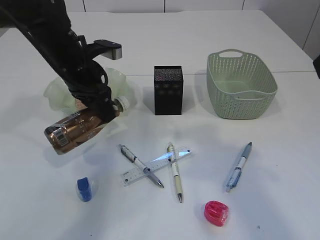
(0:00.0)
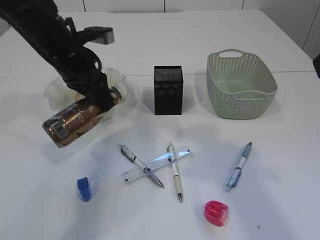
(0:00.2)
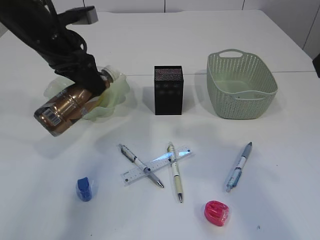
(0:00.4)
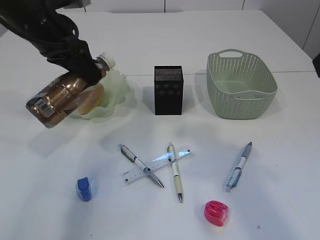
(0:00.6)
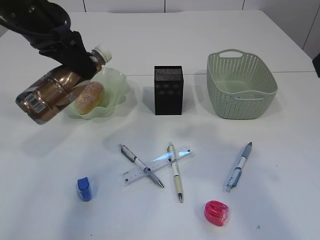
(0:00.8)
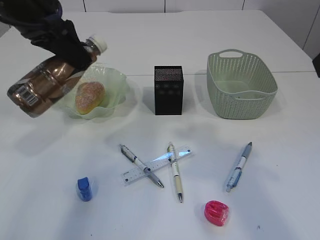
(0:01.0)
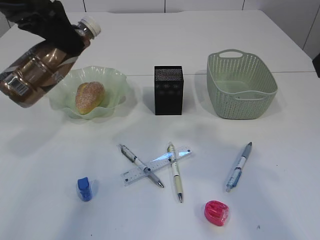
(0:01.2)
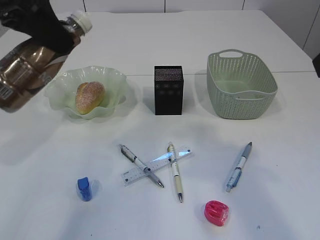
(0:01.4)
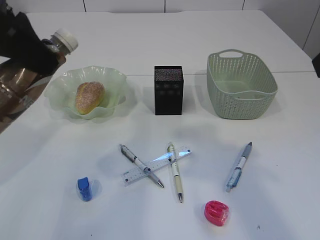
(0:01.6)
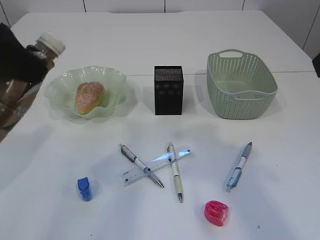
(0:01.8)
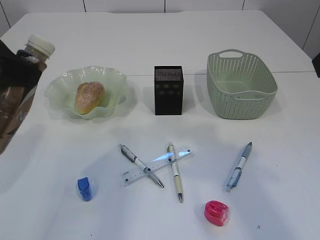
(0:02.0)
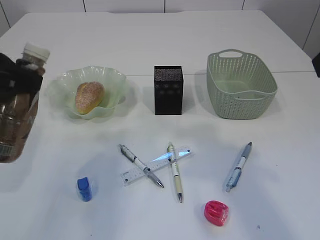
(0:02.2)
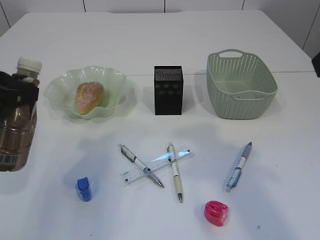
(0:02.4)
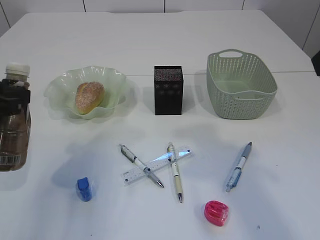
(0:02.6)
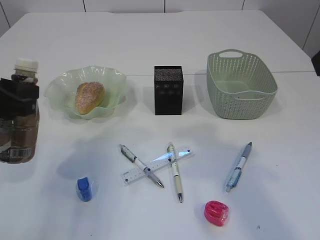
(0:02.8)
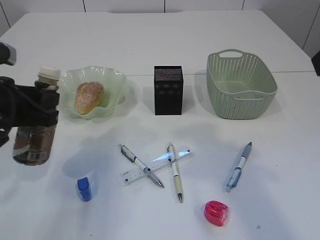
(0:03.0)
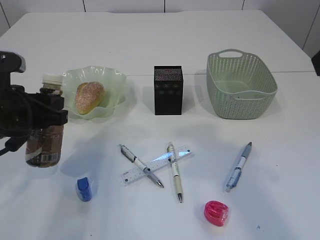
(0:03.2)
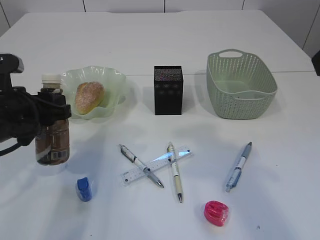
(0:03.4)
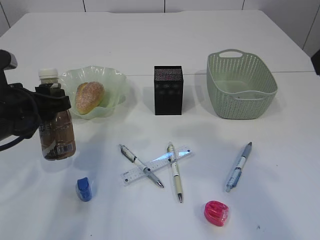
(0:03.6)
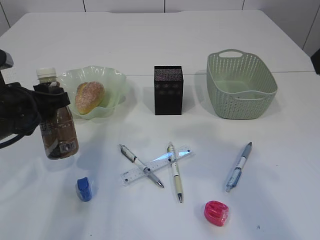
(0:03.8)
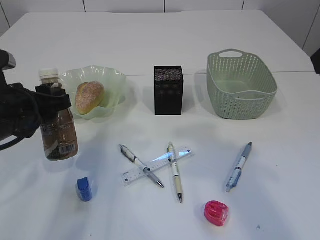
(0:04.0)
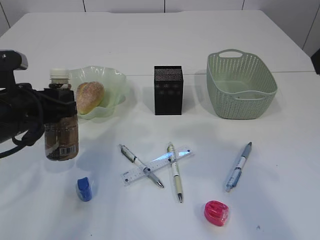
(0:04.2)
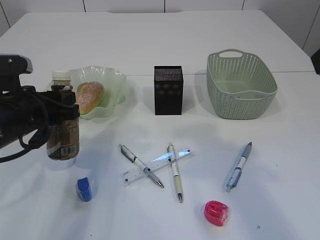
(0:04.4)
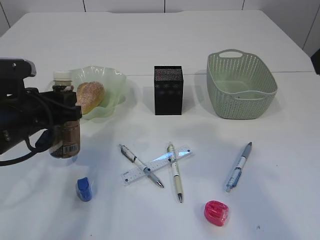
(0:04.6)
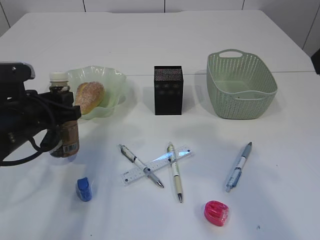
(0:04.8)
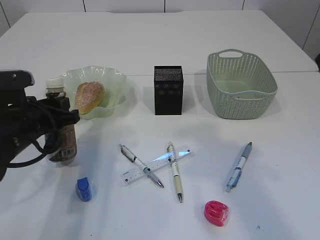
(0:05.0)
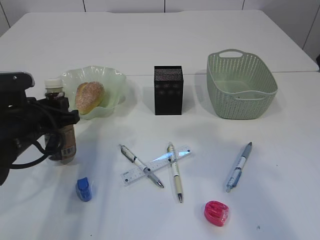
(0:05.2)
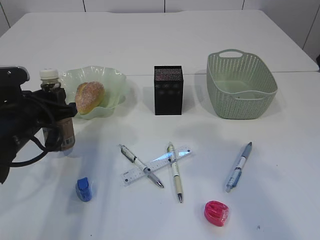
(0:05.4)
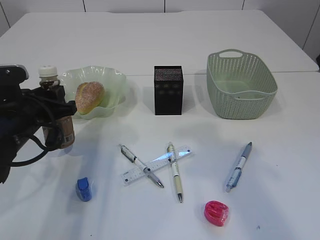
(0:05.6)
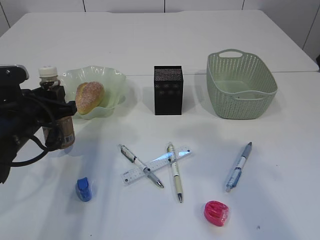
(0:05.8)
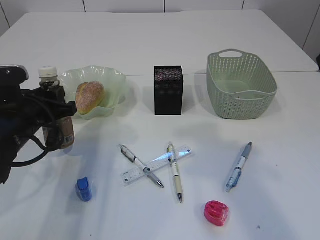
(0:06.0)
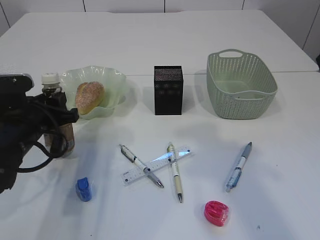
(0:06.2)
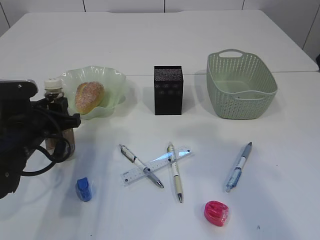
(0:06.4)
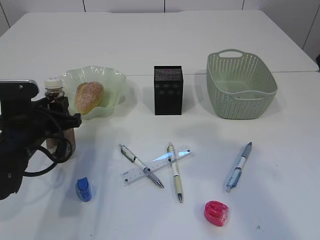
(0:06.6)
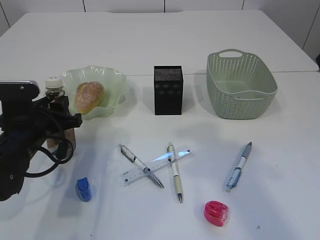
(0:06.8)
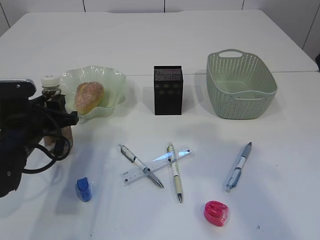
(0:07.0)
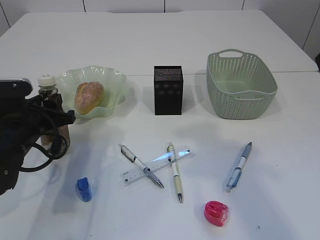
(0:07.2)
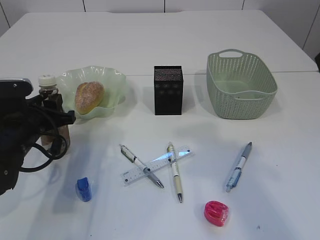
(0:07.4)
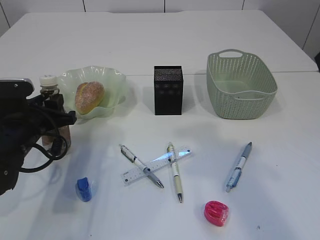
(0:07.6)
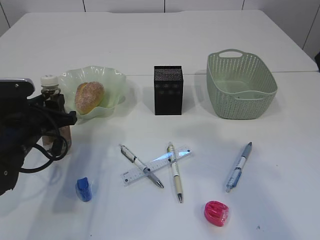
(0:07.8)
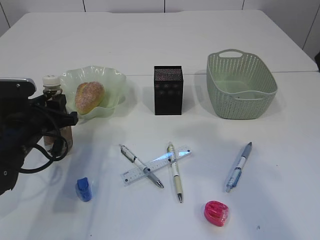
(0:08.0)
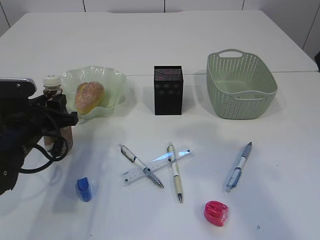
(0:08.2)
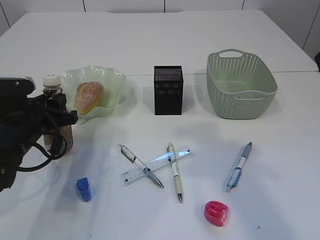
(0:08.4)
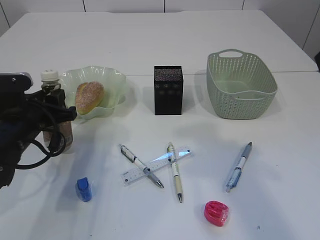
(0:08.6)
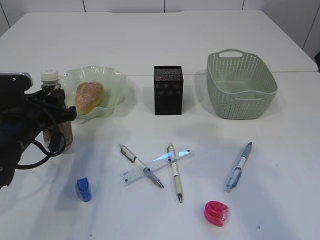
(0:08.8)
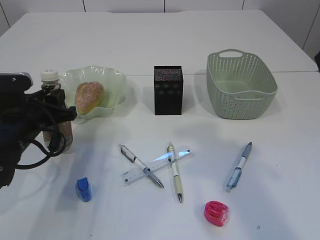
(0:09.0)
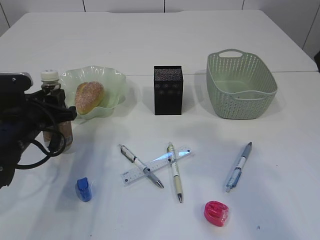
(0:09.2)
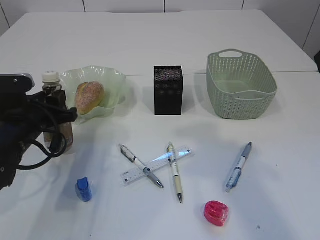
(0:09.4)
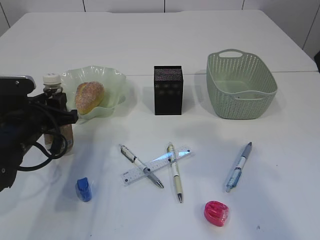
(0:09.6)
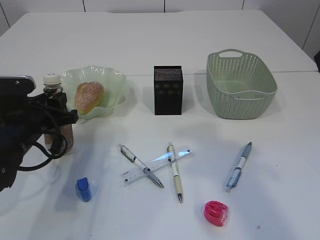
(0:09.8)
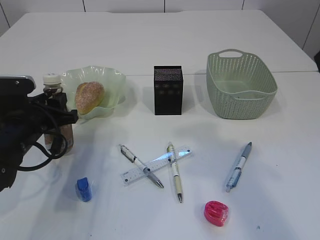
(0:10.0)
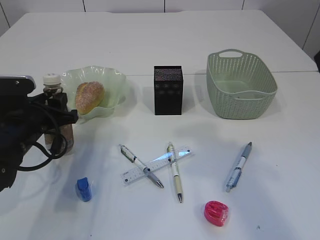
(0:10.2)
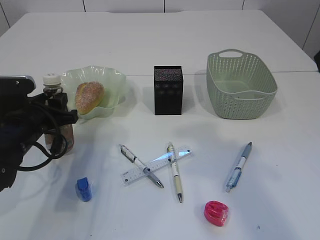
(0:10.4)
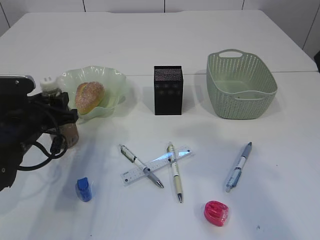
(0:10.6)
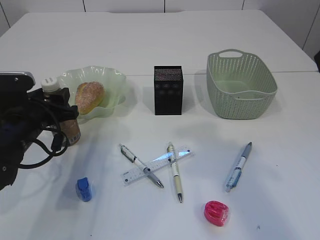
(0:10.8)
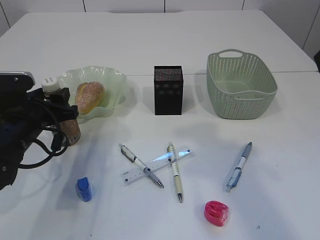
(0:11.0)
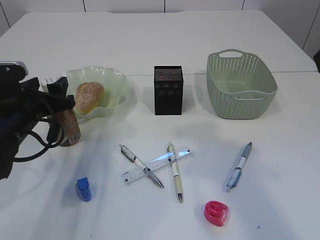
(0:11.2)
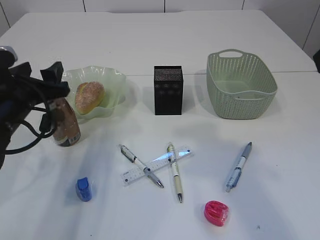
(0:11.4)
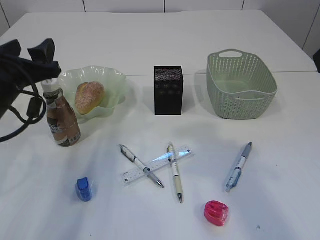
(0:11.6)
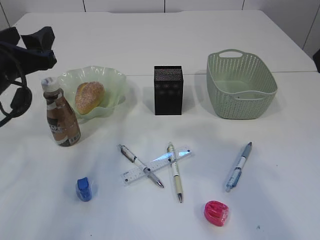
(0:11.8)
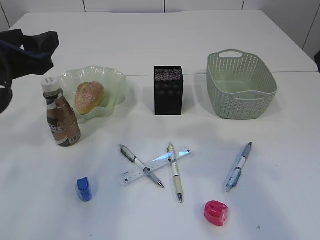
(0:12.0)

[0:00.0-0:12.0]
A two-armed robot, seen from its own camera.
0:00.0 to 0:01.6: The left gripper heads upward and backward, covering about 20 cm.
0:01.6 to 0:03.0: The left gripper shifts about 15 cm downward.
0:04.4 to 0:06.0: The grippers move only a little.
0:06.0 to 0:07.6: The grippers move only a little.
0:07.6 to 0:10.4: Both grippers stay put.
0:10.4 to 0:12.0: The left gripper goes about 15 cm upward, and opens.

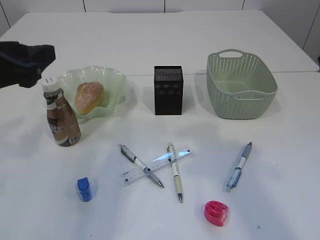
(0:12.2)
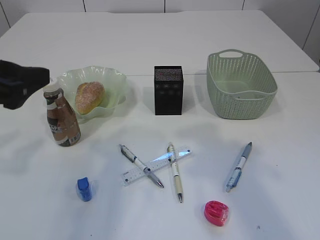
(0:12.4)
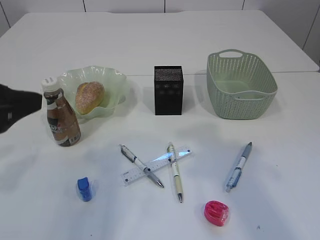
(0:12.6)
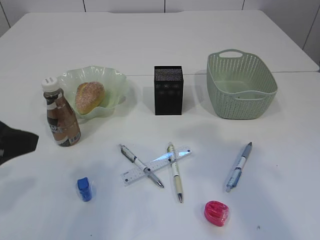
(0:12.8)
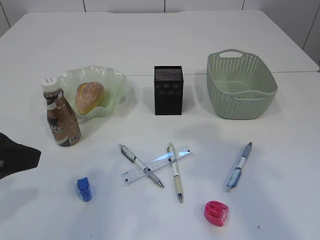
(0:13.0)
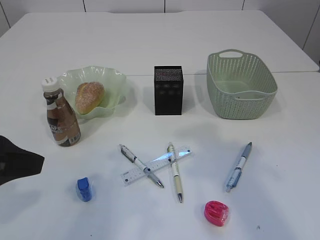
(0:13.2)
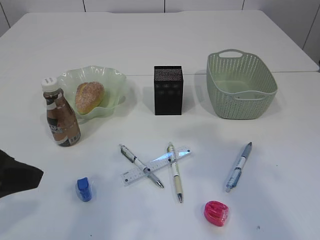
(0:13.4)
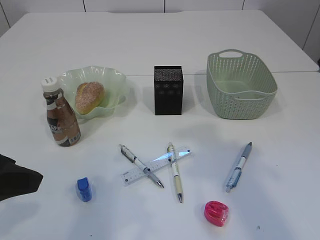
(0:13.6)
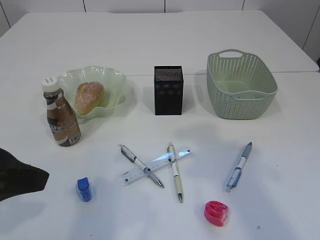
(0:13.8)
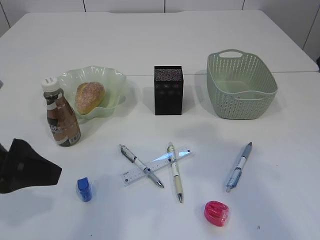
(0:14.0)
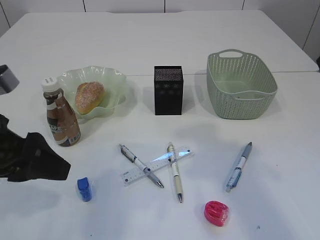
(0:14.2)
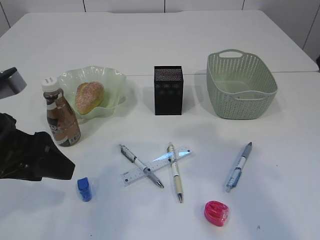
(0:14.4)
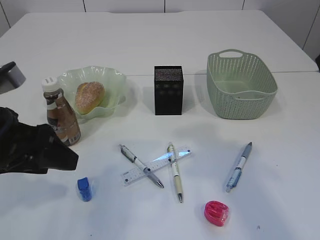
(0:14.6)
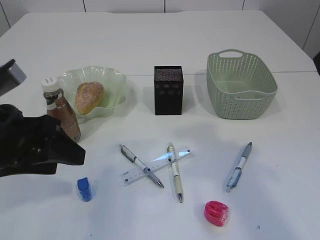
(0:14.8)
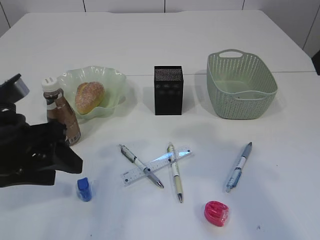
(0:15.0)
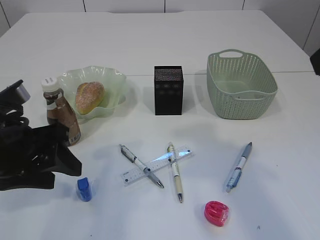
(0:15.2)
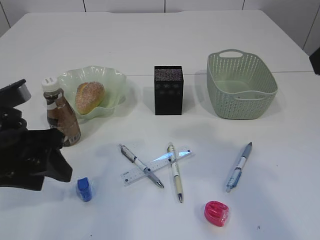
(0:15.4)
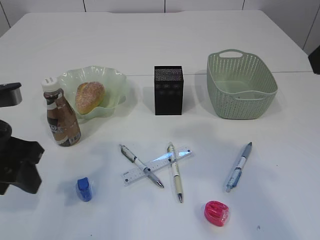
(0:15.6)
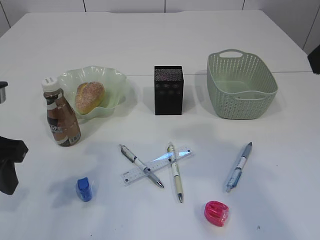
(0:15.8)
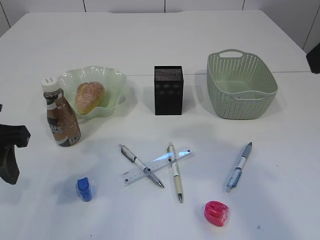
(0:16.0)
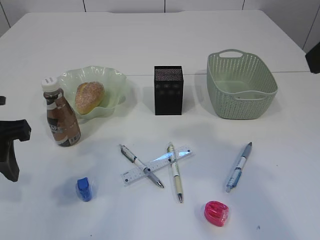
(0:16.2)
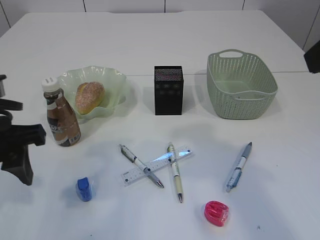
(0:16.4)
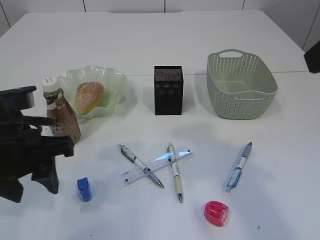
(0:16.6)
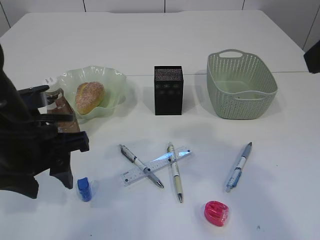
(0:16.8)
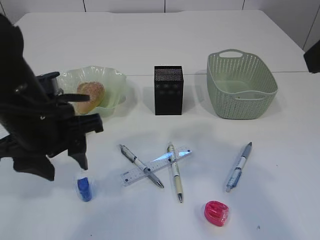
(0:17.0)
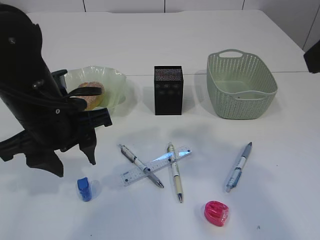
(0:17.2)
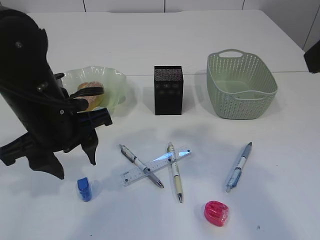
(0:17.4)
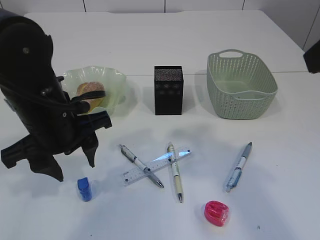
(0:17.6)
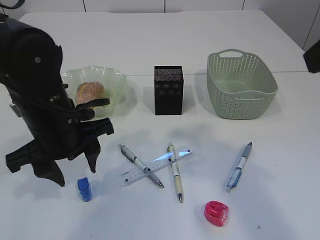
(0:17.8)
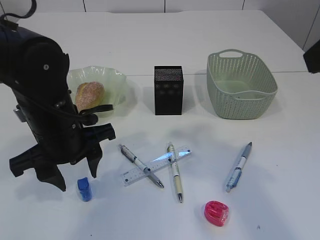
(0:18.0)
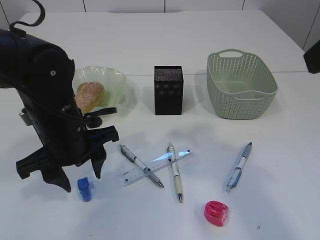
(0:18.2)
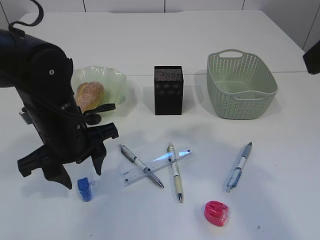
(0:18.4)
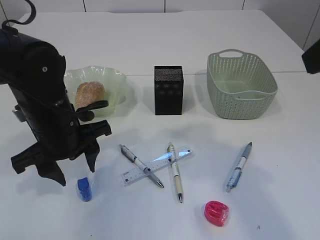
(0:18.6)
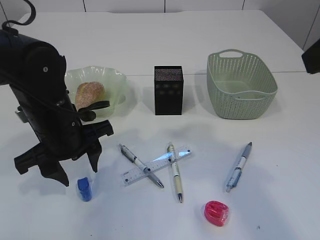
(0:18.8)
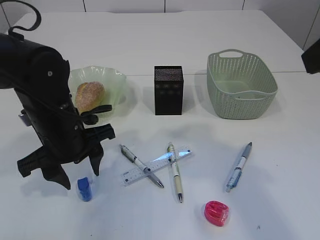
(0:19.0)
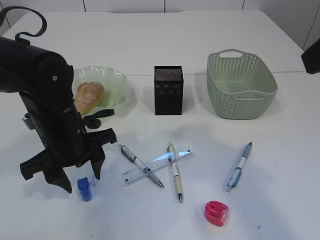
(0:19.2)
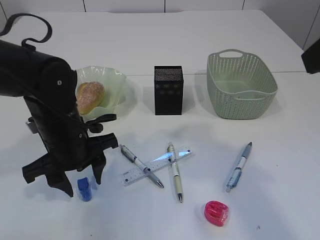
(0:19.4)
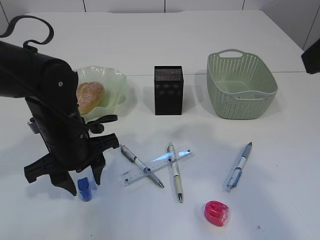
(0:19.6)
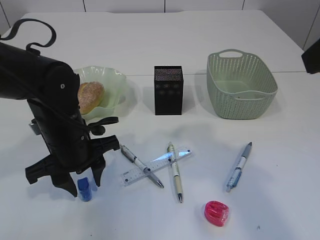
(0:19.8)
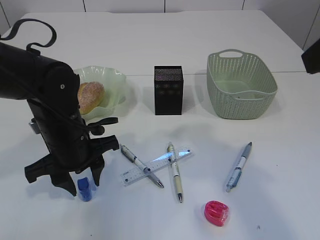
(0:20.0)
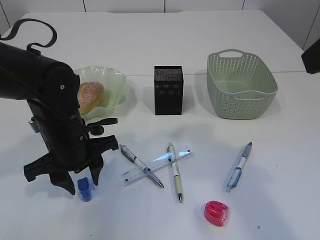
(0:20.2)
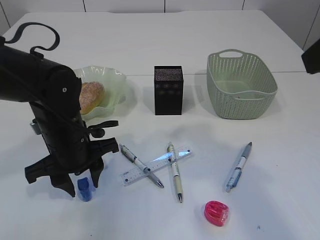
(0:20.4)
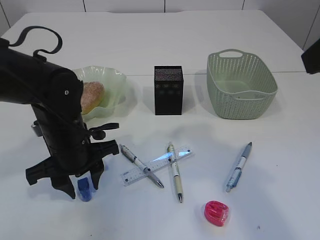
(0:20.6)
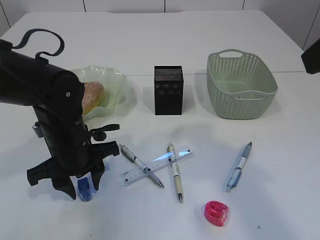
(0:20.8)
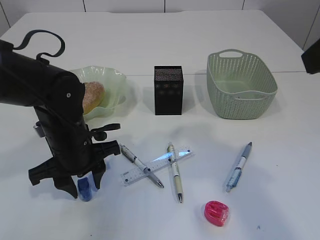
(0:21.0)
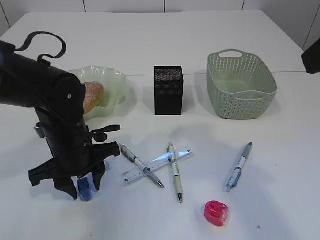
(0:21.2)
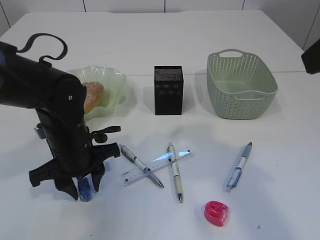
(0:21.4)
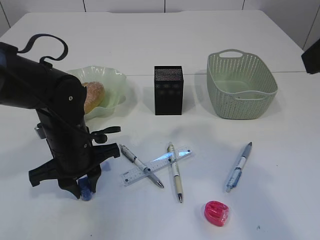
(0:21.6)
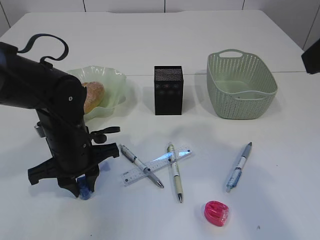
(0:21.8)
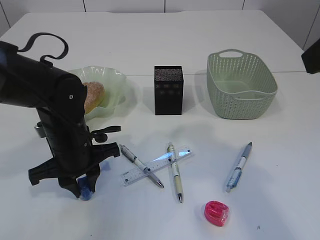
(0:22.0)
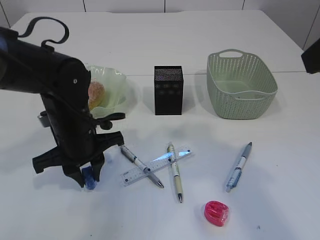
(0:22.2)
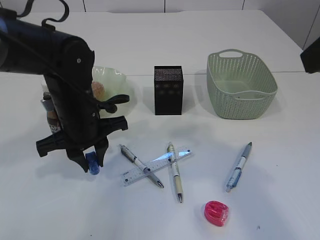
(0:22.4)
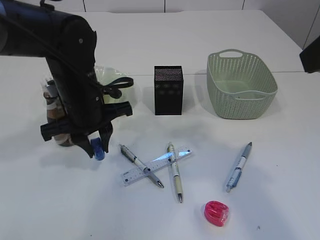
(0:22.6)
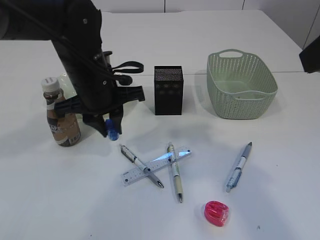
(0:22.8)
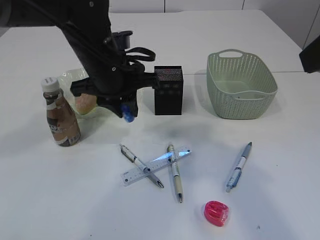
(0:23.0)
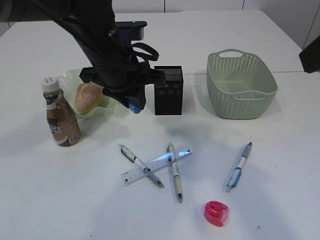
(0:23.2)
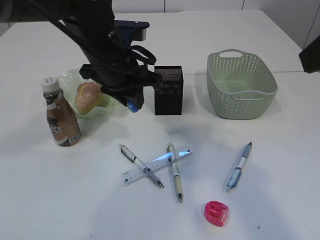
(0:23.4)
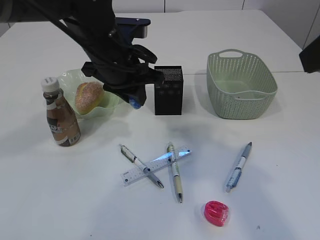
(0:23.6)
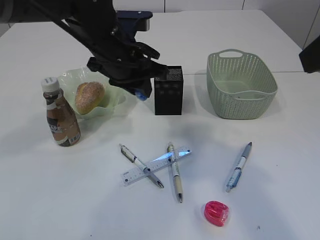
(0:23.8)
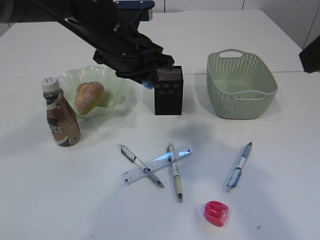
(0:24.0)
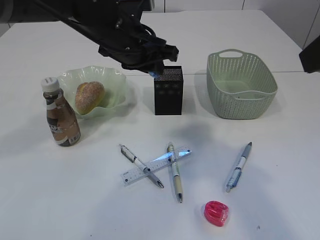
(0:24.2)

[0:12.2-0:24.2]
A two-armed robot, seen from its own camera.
Step, 0:12.4 to 0:23.2: Pick up the blue pencil sharpener.
0:12.2 to 0:13.8: The left gripper moves backward, some 10 cm.
0:13.8 to 0:15.2: The left gripper heads forward, covering approximately 5 cm.
0:16.6 to 0:18.2: The left gripper heads forward, covering some 5 cm.
0:18.2 to 0:21.2: The grippers stay close to where they were, moving slightly.
0:21.2 to 0:22.6: The left gripper heads upward, covering roughly 5 cm, and closes up.
0:22.6 to 0:24.2: The left gripper moves upward and to the right, roughly 10 cm.
